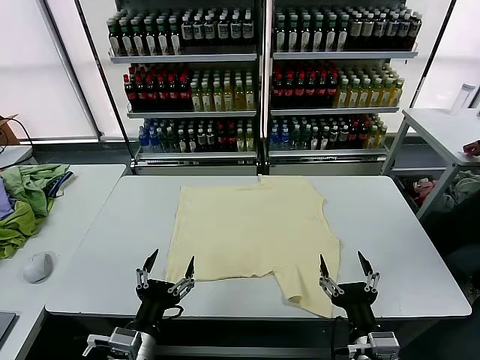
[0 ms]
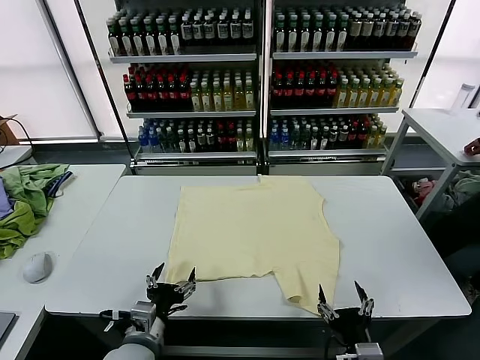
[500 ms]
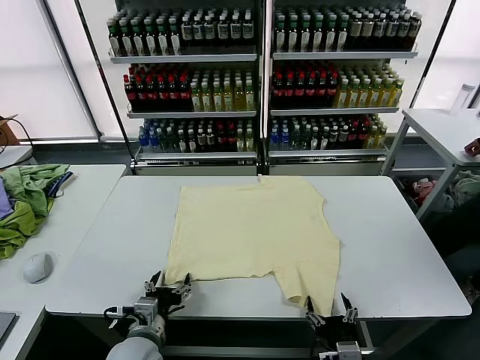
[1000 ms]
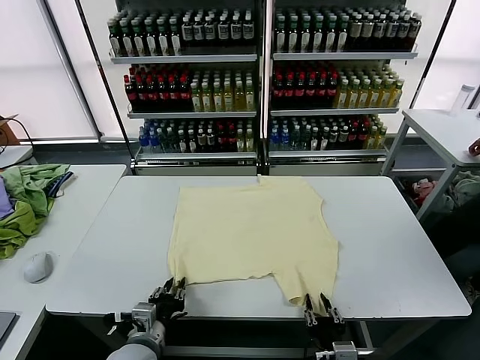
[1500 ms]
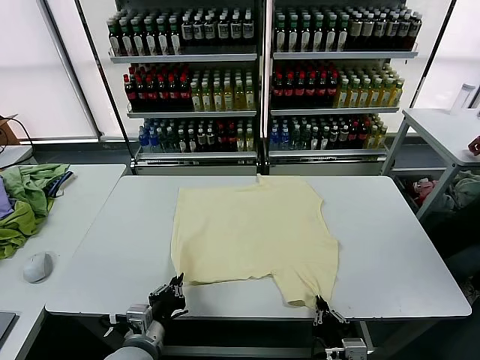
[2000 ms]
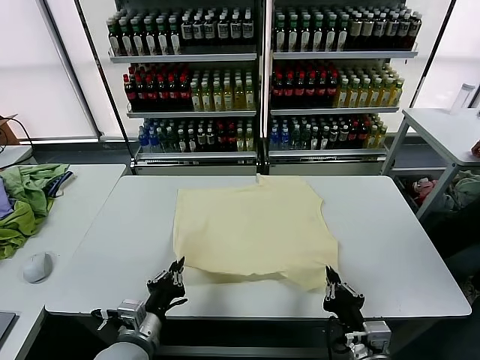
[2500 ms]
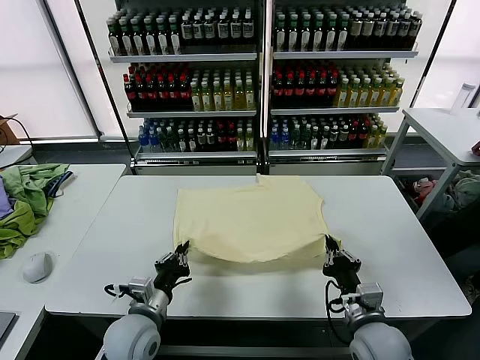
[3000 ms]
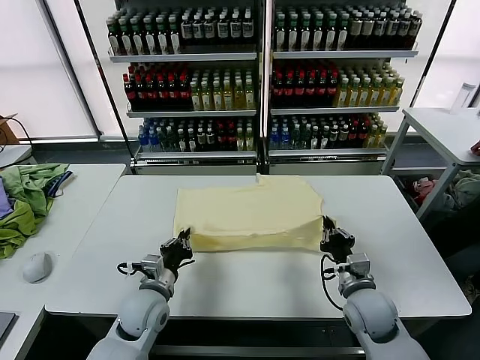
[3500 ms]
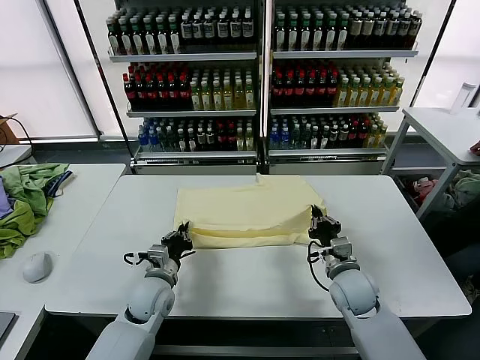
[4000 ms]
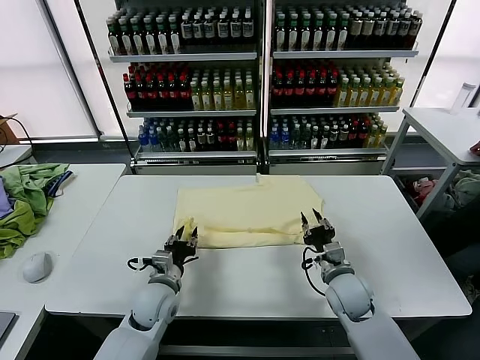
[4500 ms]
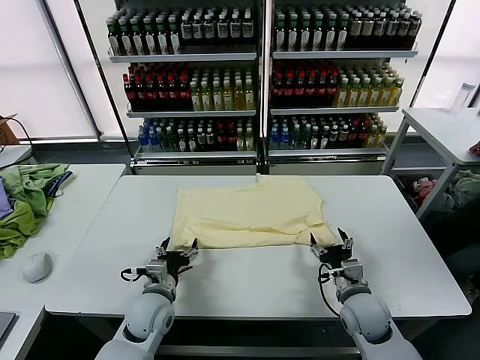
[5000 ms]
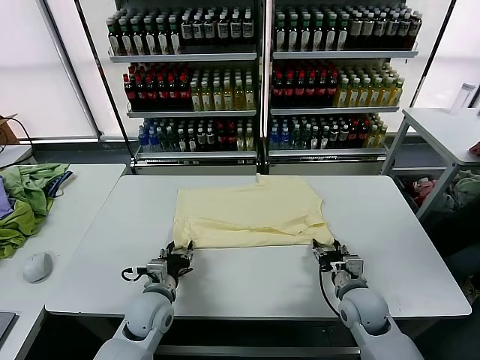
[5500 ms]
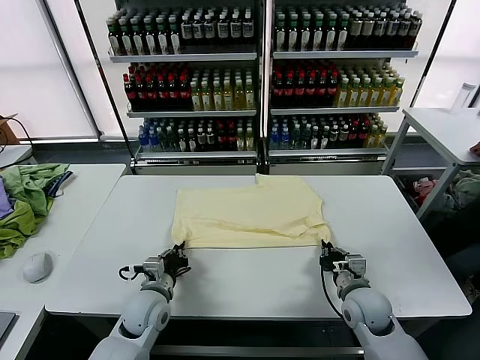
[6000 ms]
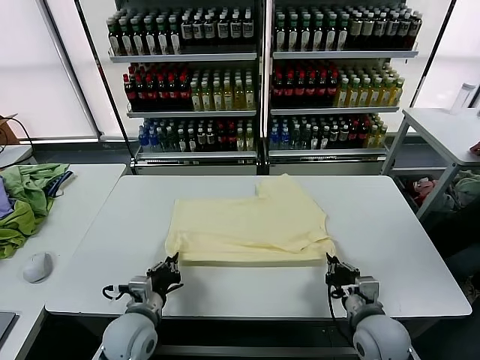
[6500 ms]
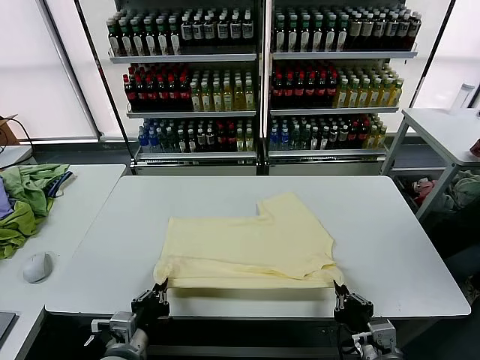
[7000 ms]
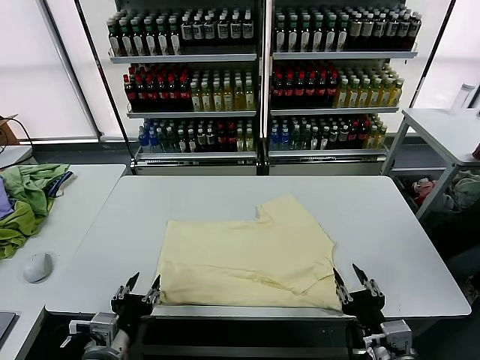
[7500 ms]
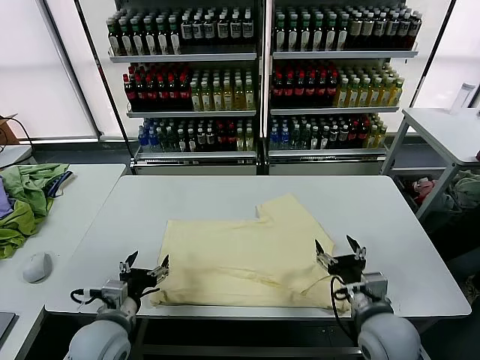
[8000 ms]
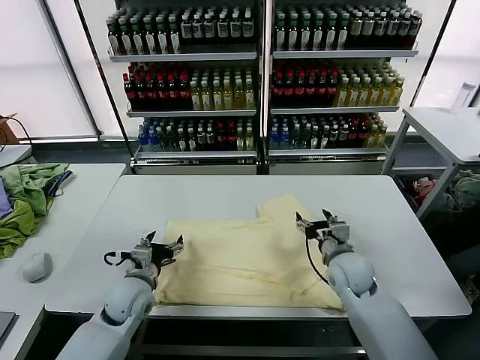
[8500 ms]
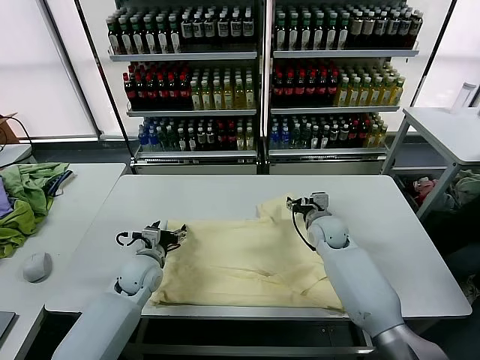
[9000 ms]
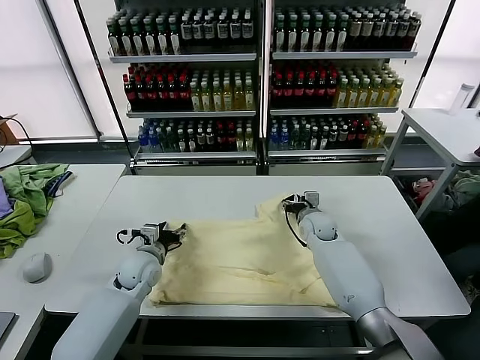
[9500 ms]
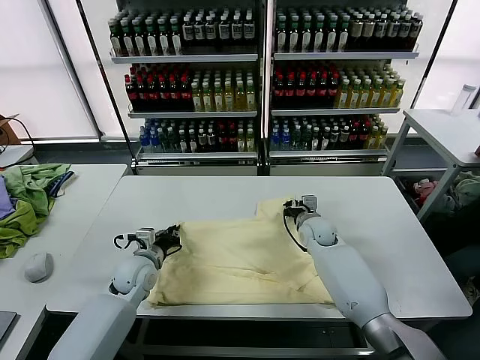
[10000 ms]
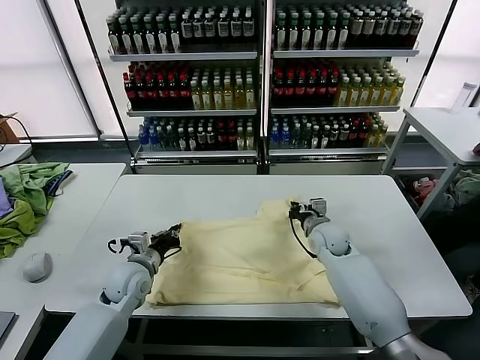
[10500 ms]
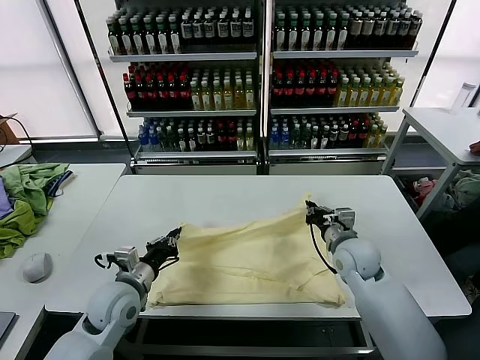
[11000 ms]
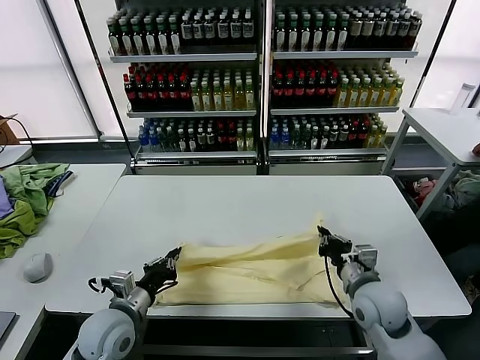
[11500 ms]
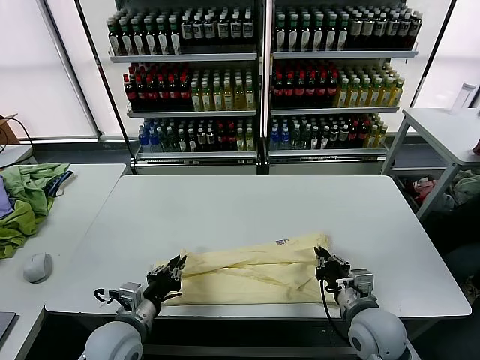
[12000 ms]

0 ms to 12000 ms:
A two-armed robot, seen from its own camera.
Task of the whole recording: fold and organize the clothes.
Step, 0 ms to 1500 ms: use both grippers simultaneously to clamp the lower edge of the clothing fabric.
Step, 2000 ms to 4500 ms: use both grippers to drag the lower edge of the fabric forward and fold it over the upper edge.
Step, 5000 ms to 7000 ms: Drag the clothes downward with both gripper.
Step, 7500 ms to 10000 ms: use both grippers simultaneously to clamp the upper edge of the clothing fabric.
2000 ms to 4000 ms: The two grippers go approximately 20 cm forward.
4000 ms to 6000 ms: The left gripper opens, then closes once more; the right gripper ends up approximately 5 cm from where it was, and opens, then closes again.
6000 ms to 8000 ms: The right gripper heads upward, covering some 5 cm, travels backward and back again, roughly 15 cm each way, and opens; the left gripper shifts some 10 cm backward and upward, and opens its fingers.
8000 ms to 10000 ms: The grippers both shift forward by some 20 cm. The right gripper closes up. Meanwhile the left gripper closes its fingers.
10000 ms to 12000 ms: The left gripper shifts some 15 cm backward. Meanwhile the right gripper is displaced backward by about 25 cm.

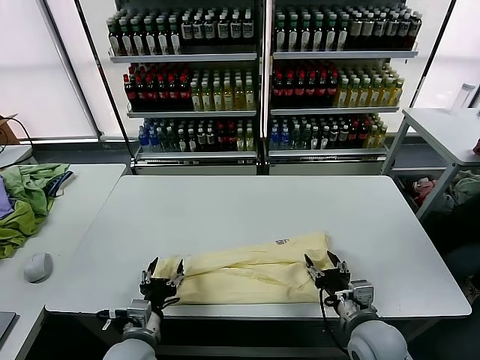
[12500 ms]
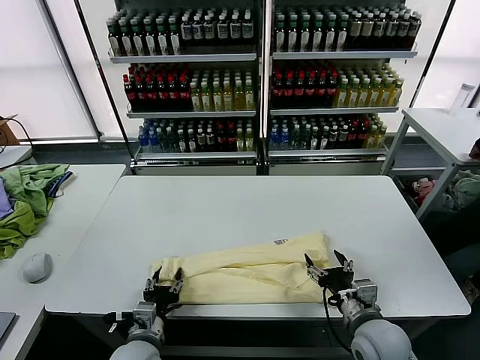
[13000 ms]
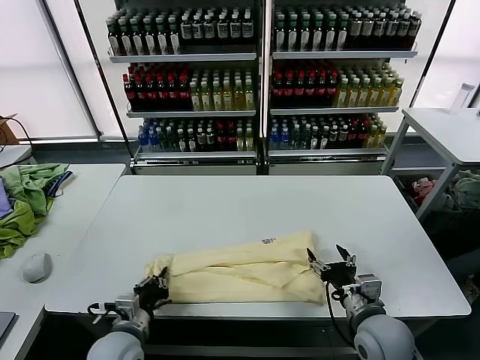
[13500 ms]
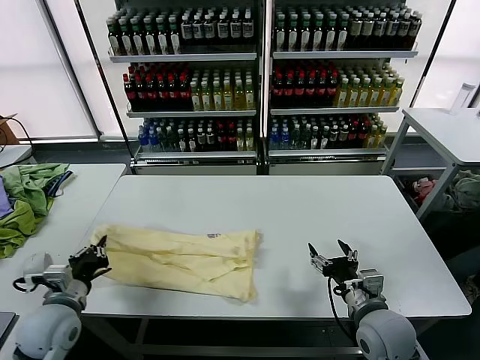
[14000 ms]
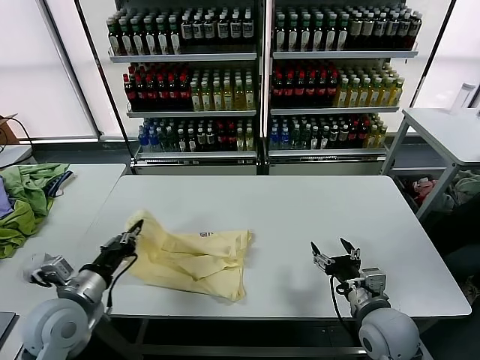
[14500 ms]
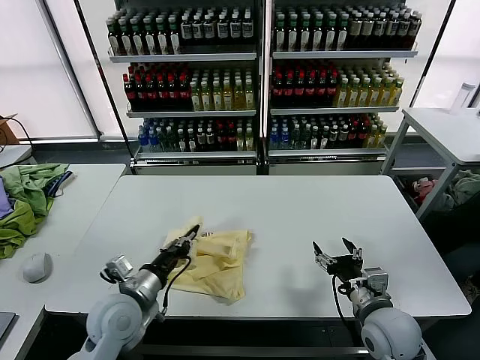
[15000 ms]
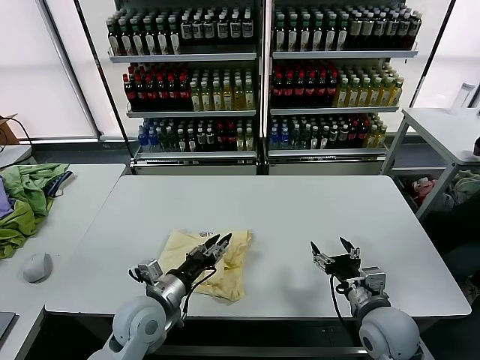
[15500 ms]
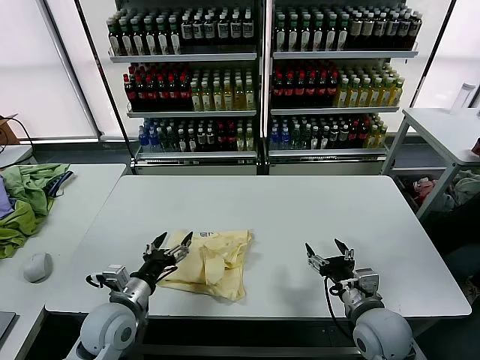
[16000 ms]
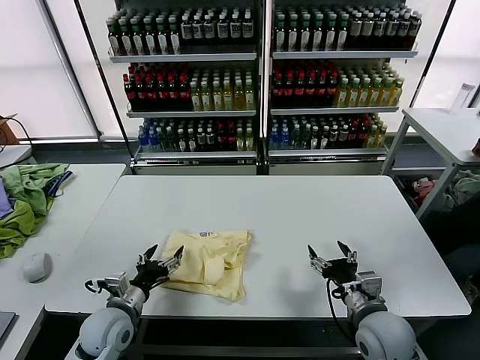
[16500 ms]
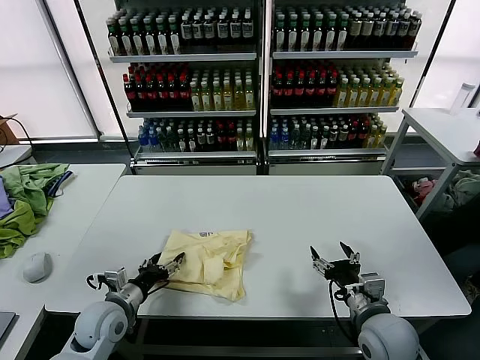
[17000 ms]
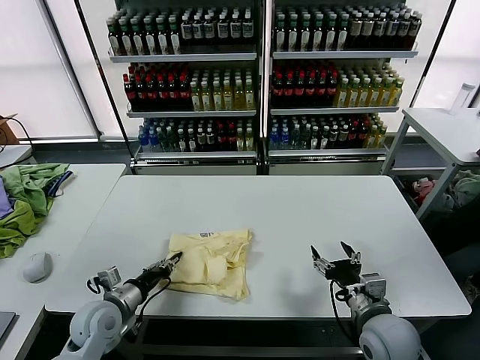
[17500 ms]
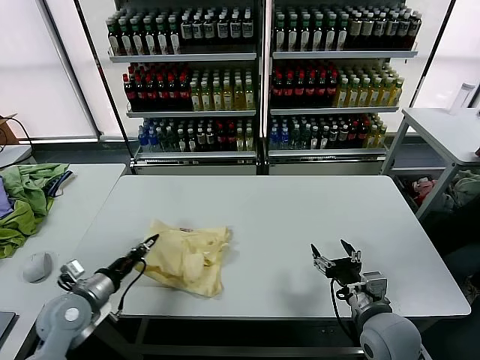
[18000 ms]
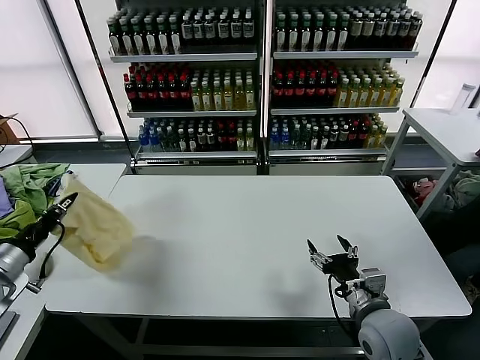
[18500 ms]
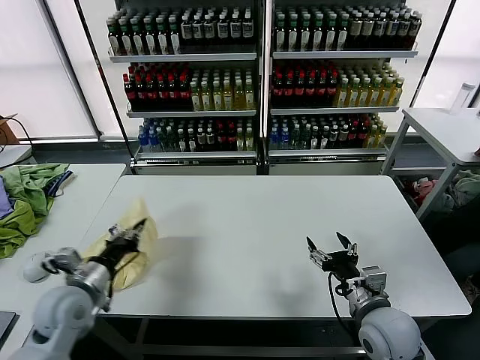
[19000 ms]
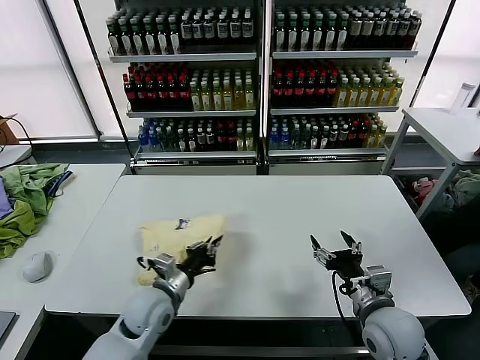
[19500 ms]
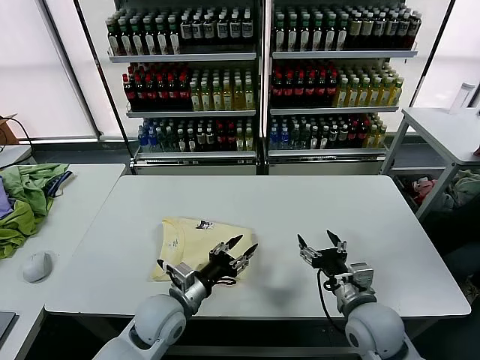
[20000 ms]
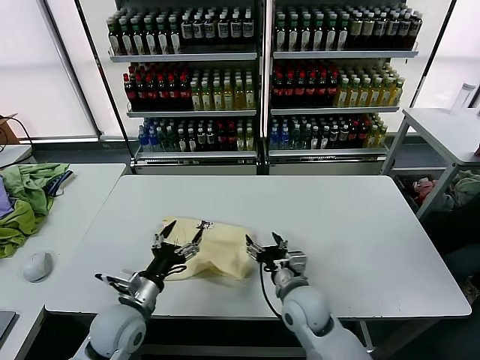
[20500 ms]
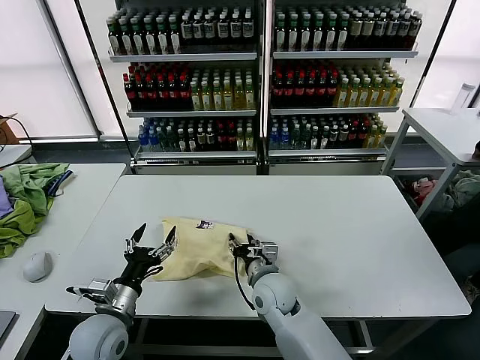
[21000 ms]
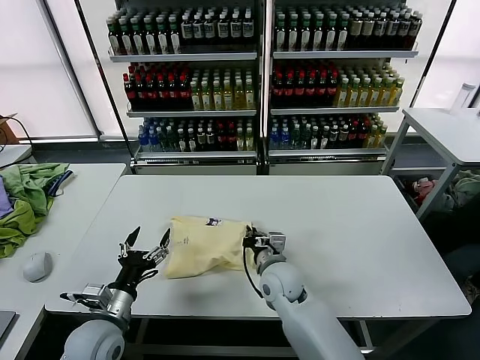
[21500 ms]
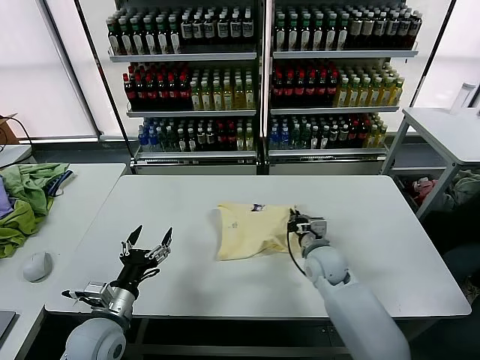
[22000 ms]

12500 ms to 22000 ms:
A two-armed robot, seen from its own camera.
Task of the whole recording: fold and organize the clothes.
Step, 13500 ms to 15000 ms: use the left gripper to drag the left edge of the fabric to the left and folds it over the right edge.
Step, 15500 ms to 19500 ms: Flip the folded clothes over with left gripper.
12500 ms to 14500 ms: The left gripper moves to the left and upward, roughly 15 cm, and closes.
14500 ms to 16500 ms: The left gripper heads downward, covering approximately 10 cm, and opens its fingers.
16500 ms to 18000 ms: The left gripper travels to the left by roughly 5 cm, and closes up.
18000 ms to 20000 ms: The left gripper travels to the right by approximately 20 cm, and opens up.
20000 ms to 22000 ms: The left gripper goes about 15 cm to the left and backward, and opens up, while the right gripper goes approximately 15 cm forward, travels to the left and back again, some 20 cm each way, and closes its fingers.

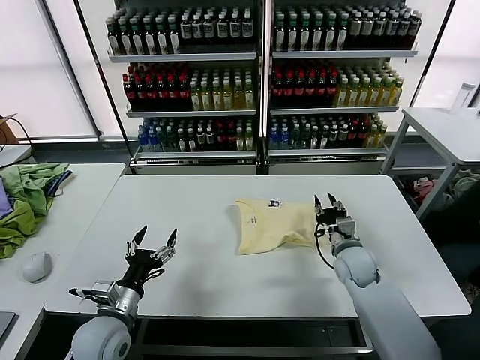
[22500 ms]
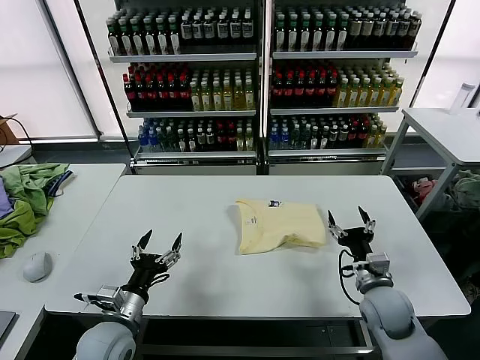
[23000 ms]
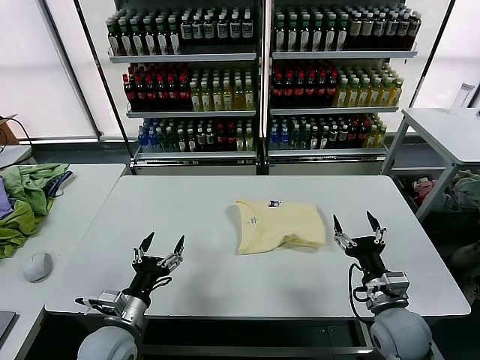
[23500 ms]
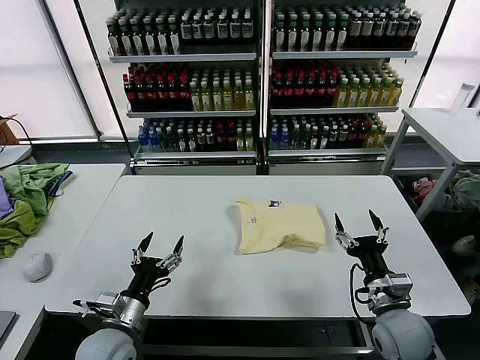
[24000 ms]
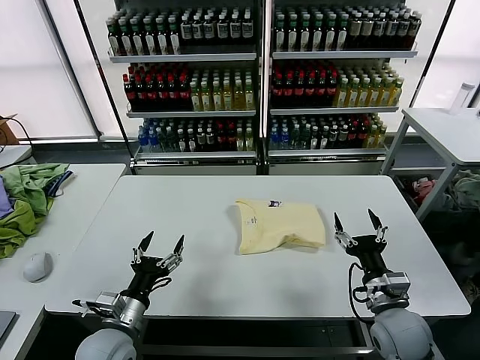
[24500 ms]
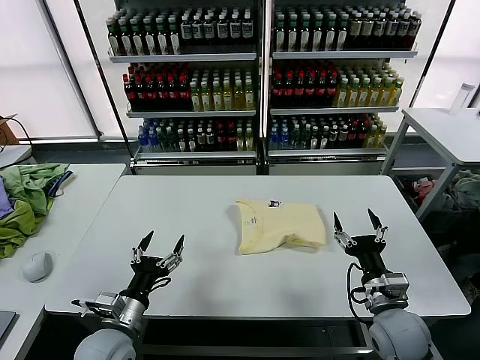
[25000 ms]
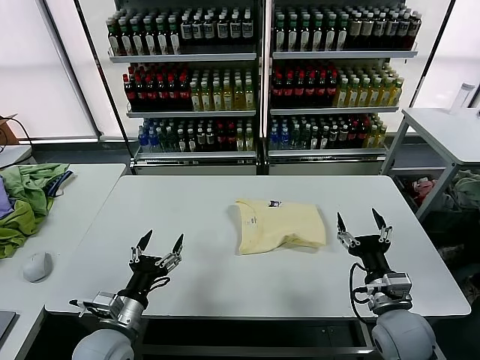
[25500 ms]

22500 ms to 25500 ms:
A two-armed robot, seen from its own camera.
Task of the whole recording: fold and organize the clothes.
22500 ms to 24000 ms: The right gripper goes approximately 15 cm backward, and opens its fingers.
24000 ms to 25500 ms: The two grippers keep their place.
